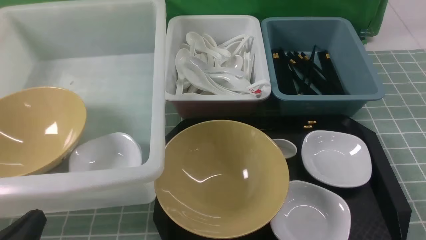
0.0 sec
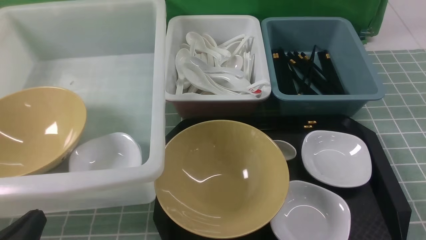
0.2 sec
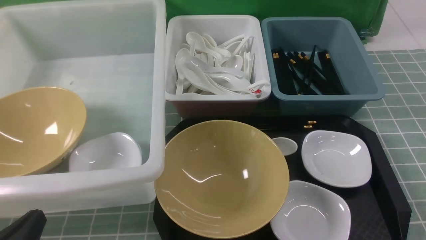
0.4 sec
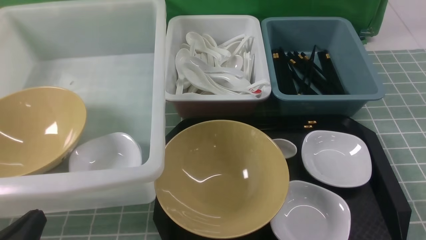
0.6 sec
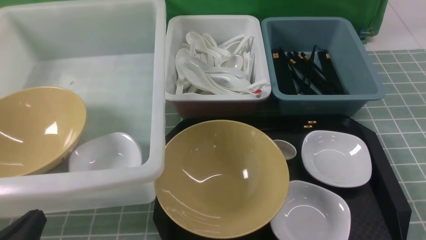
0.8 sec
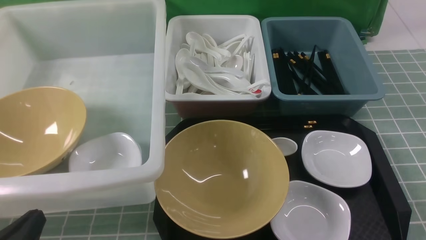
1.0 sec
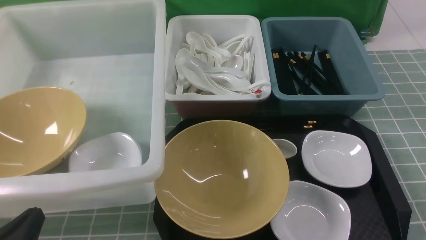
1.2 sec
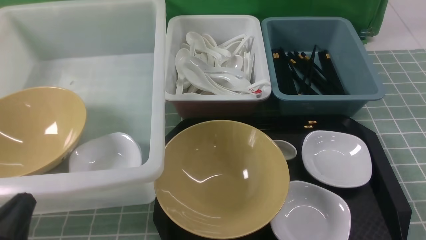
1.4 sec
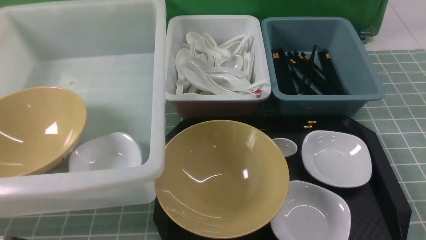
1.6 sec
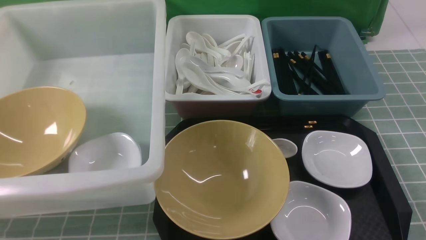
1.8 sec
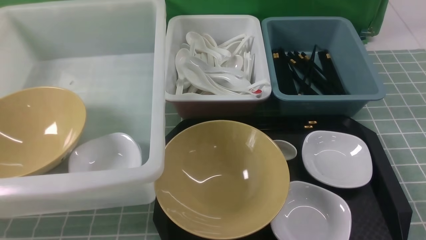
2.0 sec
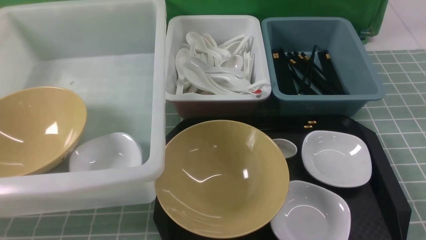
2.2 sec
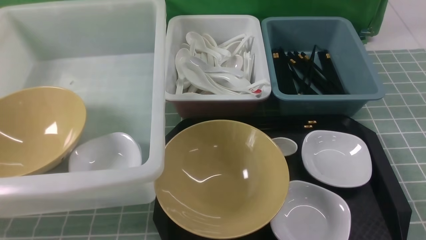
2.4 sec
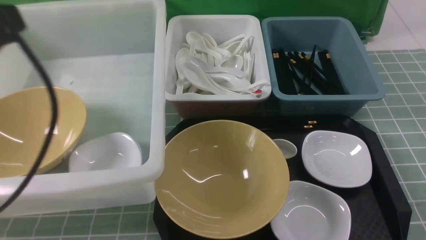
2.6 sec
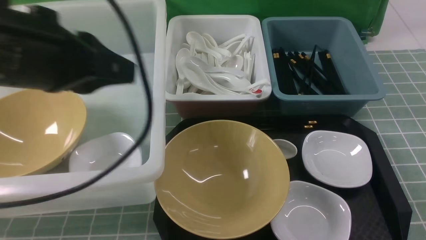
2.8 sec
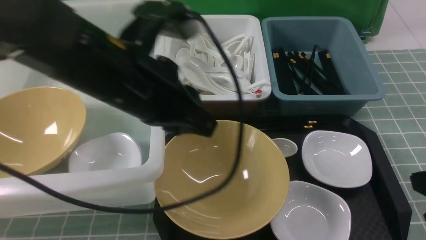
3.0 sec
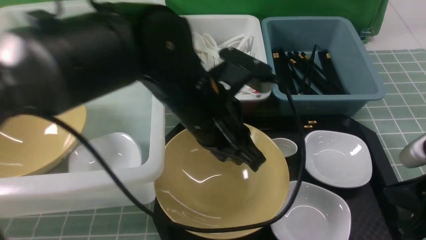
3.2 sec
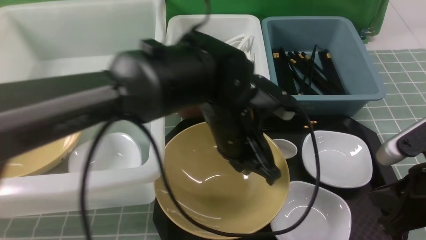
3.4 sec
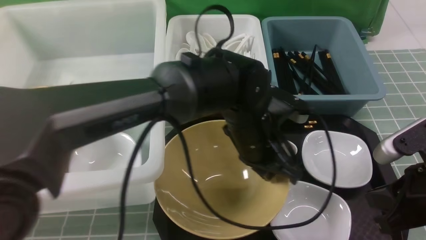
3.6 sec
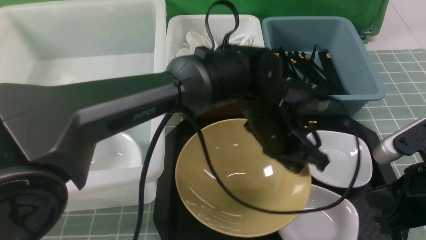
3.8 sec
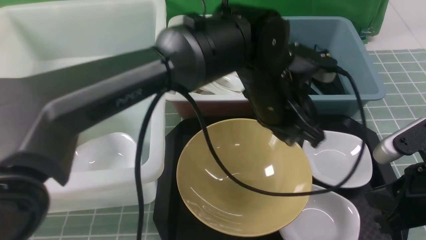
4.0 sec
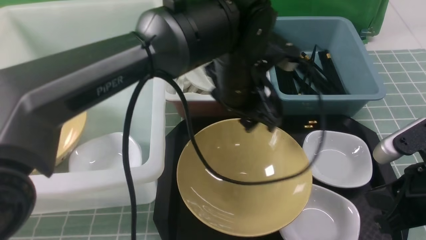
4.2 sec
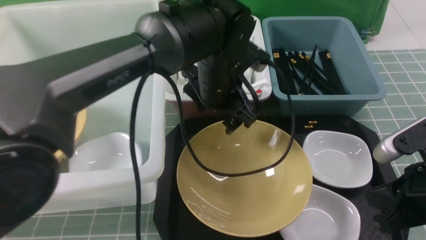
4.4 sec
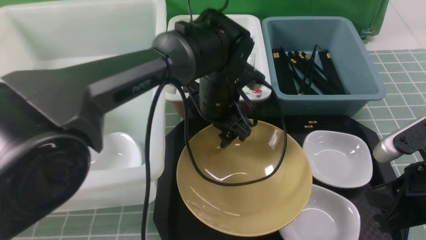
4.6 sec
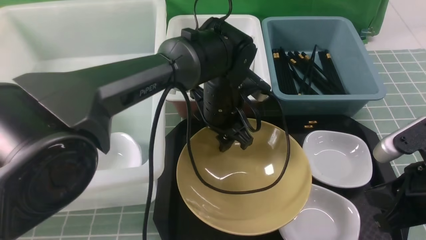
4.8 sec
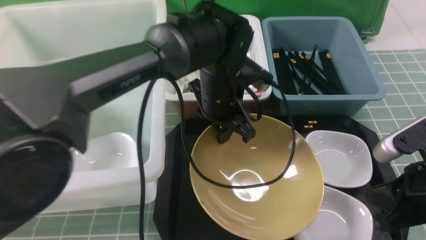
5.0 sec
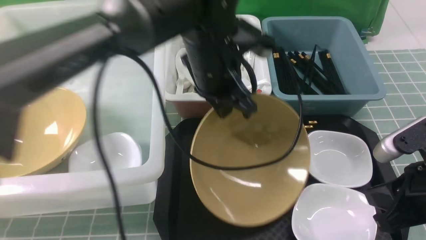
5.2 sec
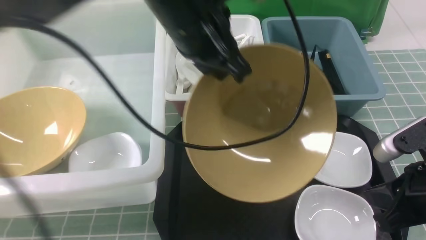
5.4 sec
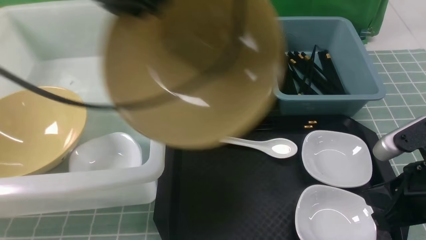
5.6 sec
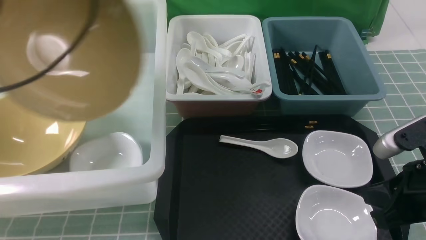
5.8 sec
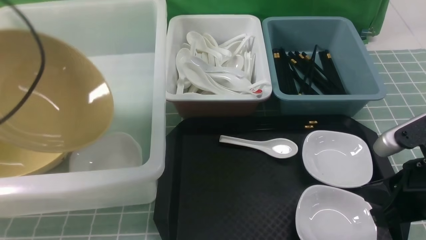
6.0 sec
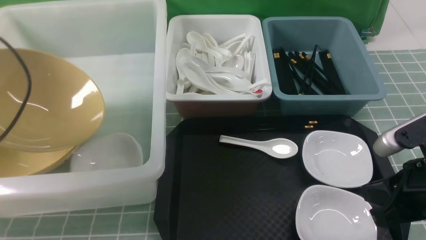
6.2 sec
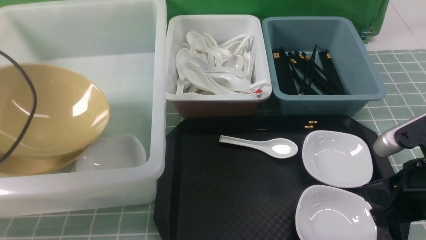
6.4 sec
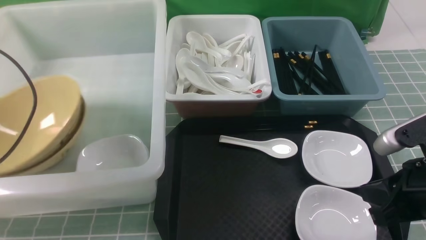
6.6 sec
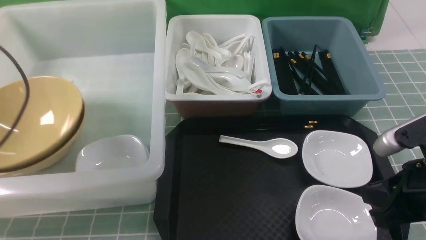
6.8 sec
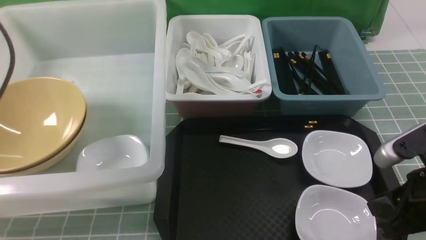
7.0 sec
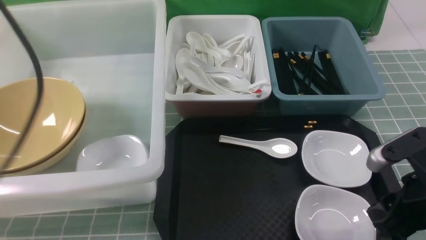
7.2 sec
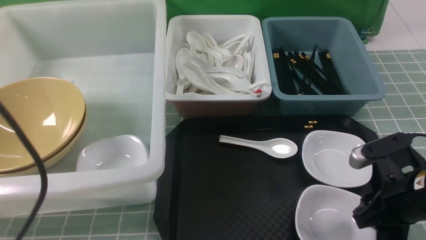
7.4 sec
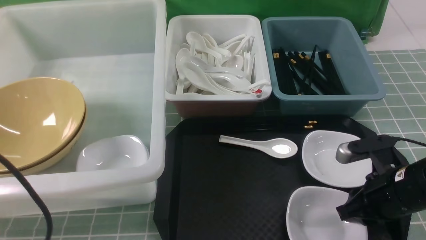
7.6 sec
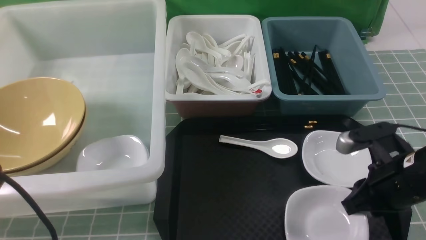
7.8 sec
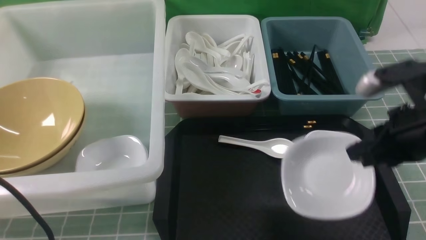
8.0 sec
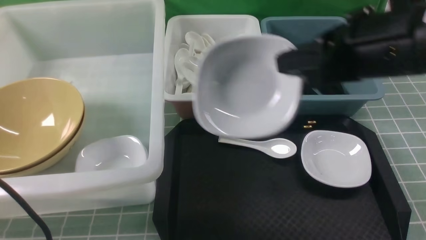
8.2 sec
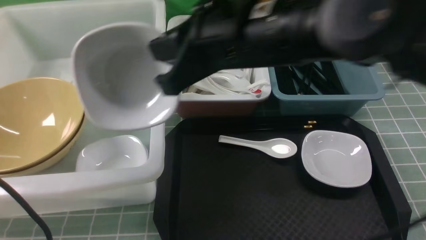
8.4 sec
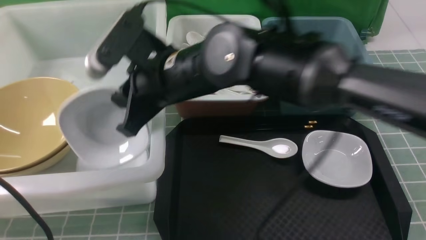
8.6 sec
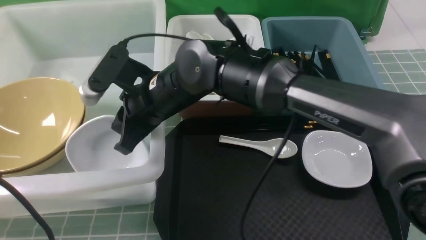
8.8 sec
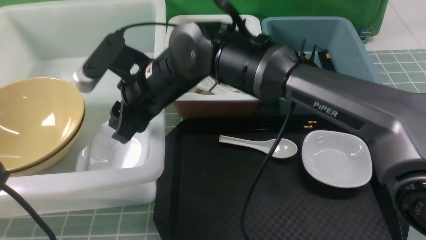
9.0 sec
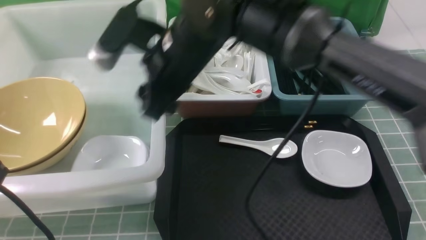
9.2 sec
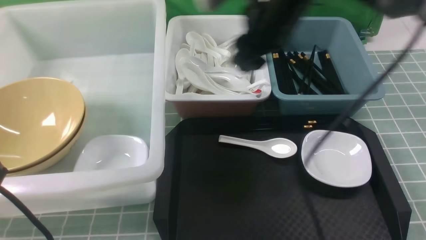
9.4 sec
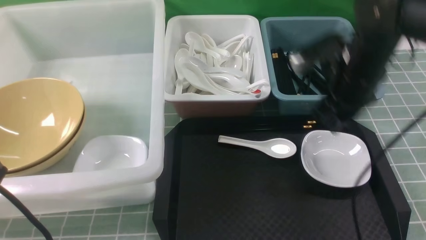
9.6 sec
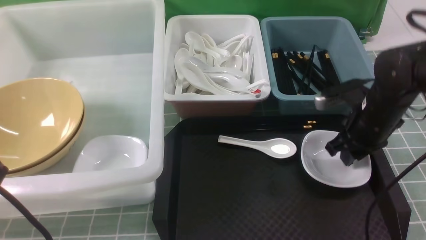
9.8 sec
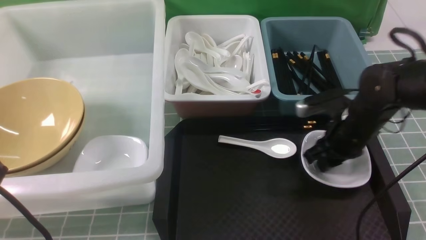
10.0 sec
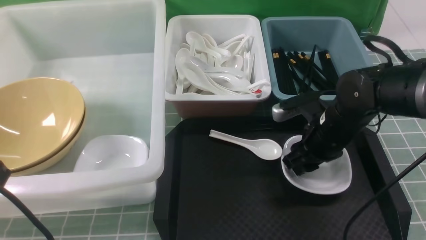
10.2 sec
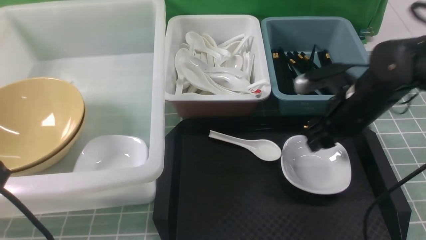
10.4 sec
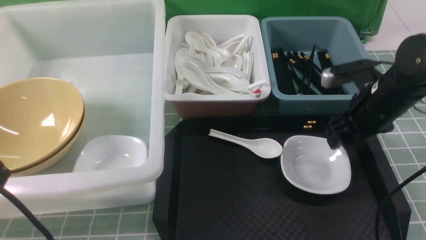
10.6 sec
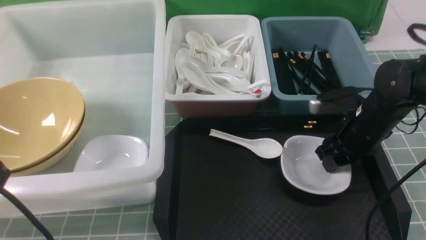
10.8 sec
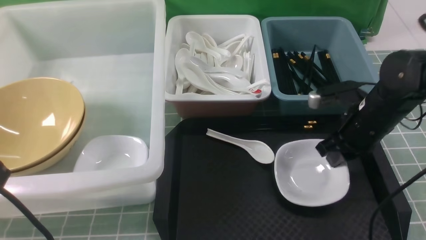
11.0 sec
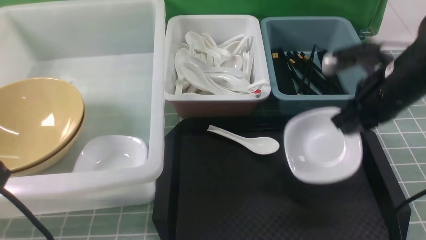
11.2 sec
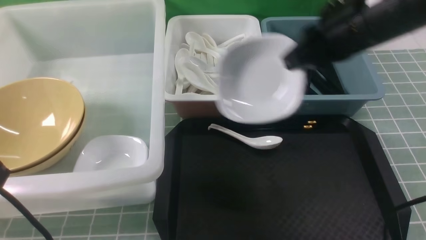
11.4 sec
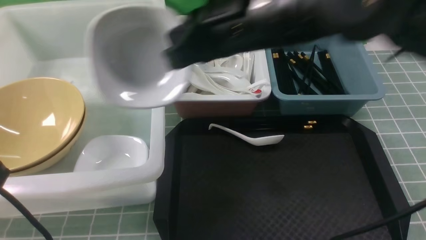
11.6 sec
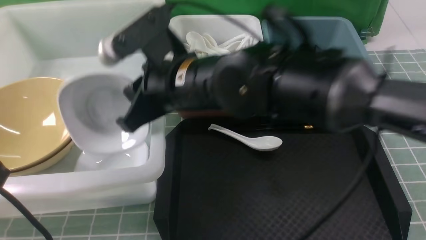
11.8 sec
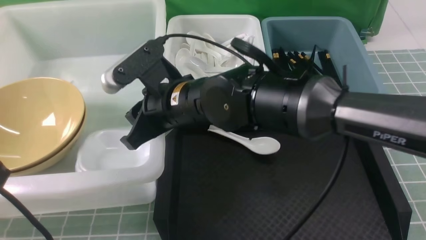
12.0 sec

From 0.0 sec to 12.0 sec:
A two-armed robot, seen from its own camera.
Task of the whole recording: on blue table put chopsticks spoon bowls plates into blue grey white boxes.
Step, from 0.0 sec to 5.2 sec: use the left arm to grab the yellow noodle bowl on the left.
Step, from 5.4 sec to 6.8 sec: use the left arm to put the noodle bowl into the large storage box on the left.
Step, from 7.0 sec to 8.0 sec: use the right arm to grab the plate.
Step, from 8.2 sec to 9.0 sec: use the right arm to put the plate into the large storage box on the left.
Step, from 9.2 sec to 11.2 sec: use the right arm to grab the plate.
From 0.0 sec to 1.6 sec: The left gripper moves upward, approximately 5 cm.
From 1.6 sec to 3.0 sec: The right gripper is displaced forward and upward by roughly 10 cm, and closes its fingers; the left gripper moves forward, to the right and upward, about 30 cm.
From 3.0 sec to 4.4 sec: The right gripper moves roughly 5 cm. The left gripper is displaced forward, to the right and downward by some 15 cm, and opens its fingers.
From 4.4 sec to 6.0 sec: The left gripper is displaced to the left by about 35 cm, and closes its fingers.
From 6.0 sec to 7.6 sec: The right gripper travels downward by approximately 5 cm, and opens its fingers, while the left gripper moves backward, approximately 15 cm, and opens and closes again.
From 7.6 sec to 9.0 sec: The right gripper shifts some 30 cm to the left, and closes, then reopens.
From 9.0 sec to 10.4 sec: The right gripper travels to the right by some 25 cm.
From 10.4 sec to 12.0 sec: The right gripper moves to the left, some 25 cm, and closes its fingers.

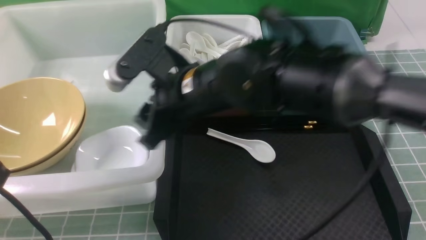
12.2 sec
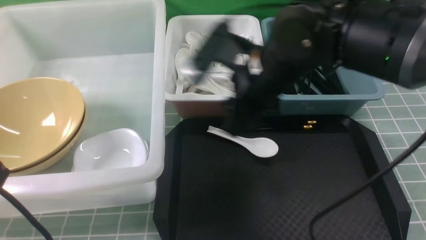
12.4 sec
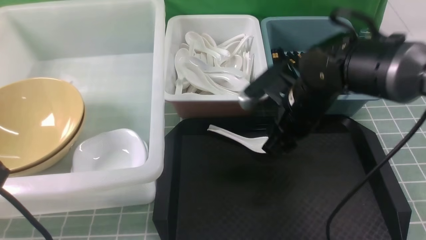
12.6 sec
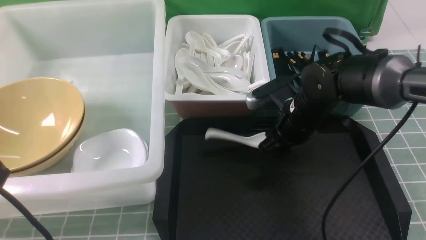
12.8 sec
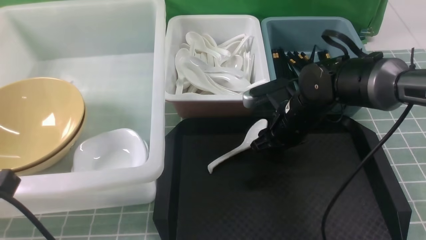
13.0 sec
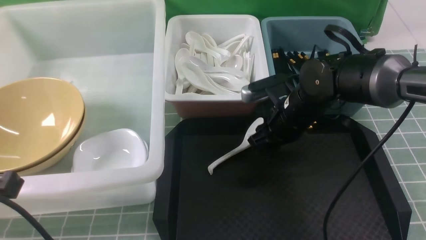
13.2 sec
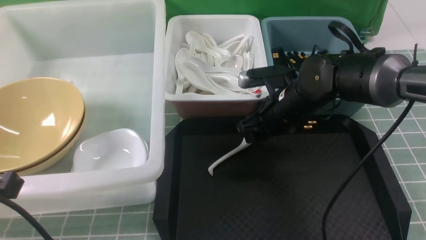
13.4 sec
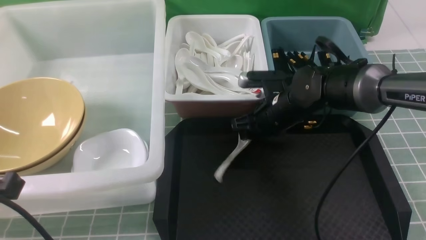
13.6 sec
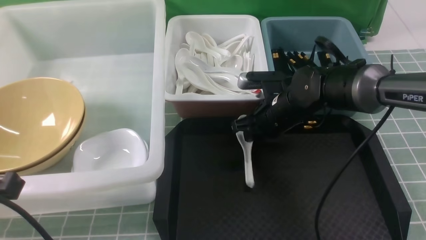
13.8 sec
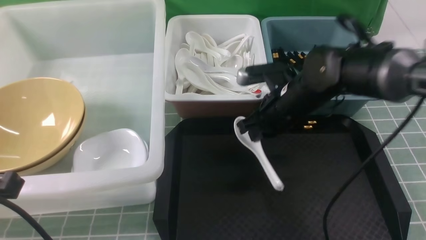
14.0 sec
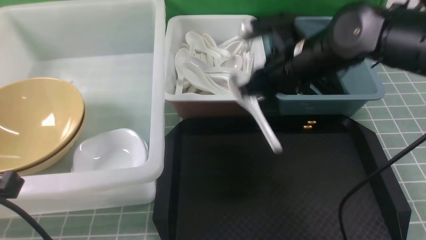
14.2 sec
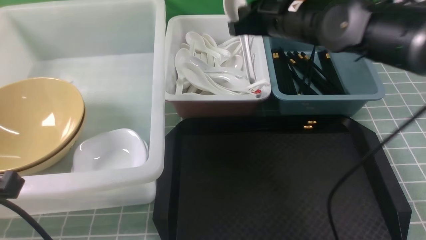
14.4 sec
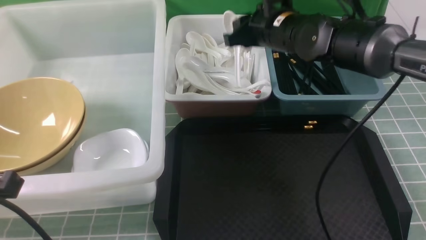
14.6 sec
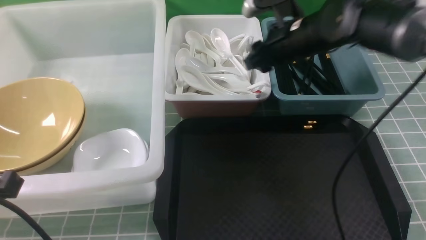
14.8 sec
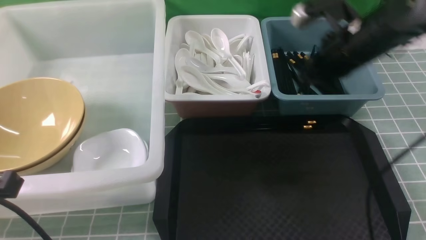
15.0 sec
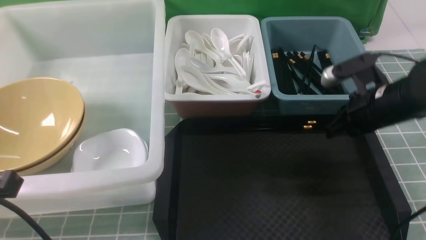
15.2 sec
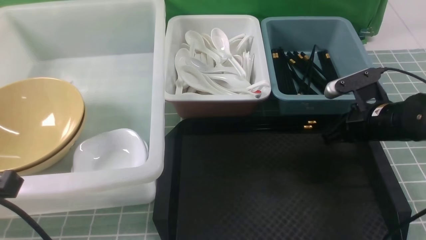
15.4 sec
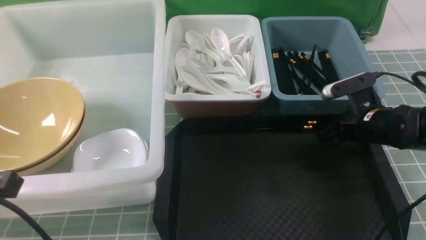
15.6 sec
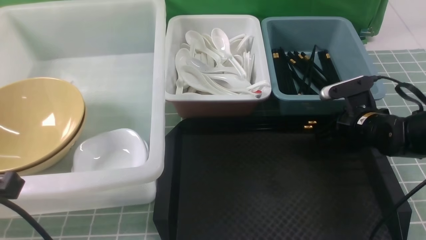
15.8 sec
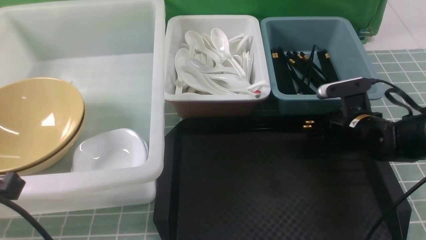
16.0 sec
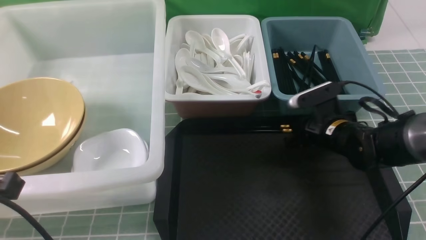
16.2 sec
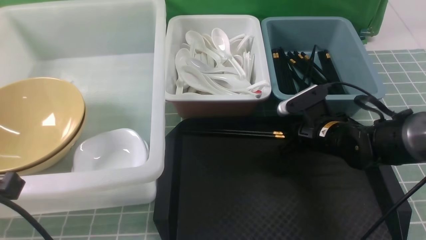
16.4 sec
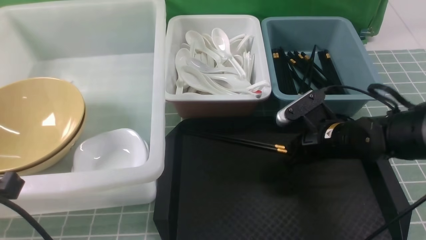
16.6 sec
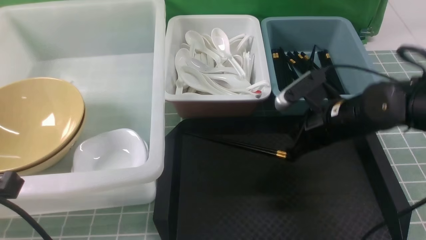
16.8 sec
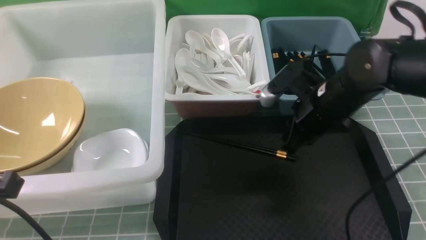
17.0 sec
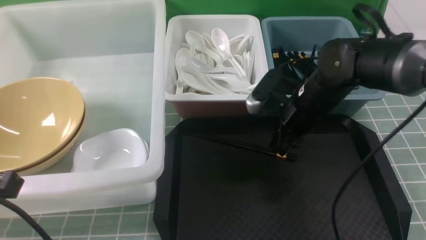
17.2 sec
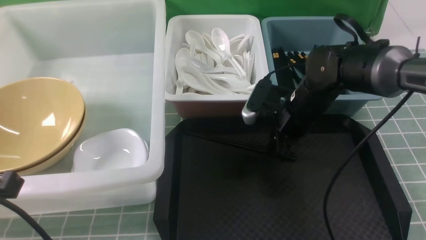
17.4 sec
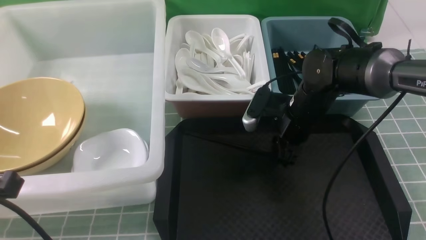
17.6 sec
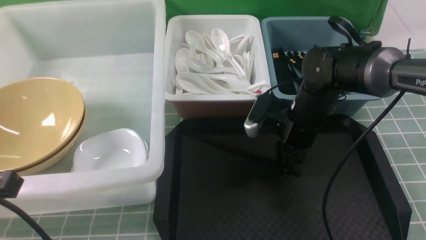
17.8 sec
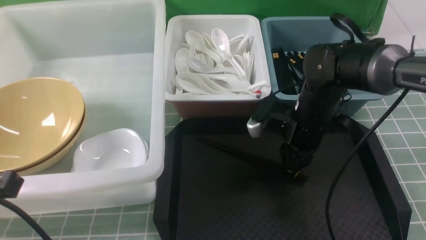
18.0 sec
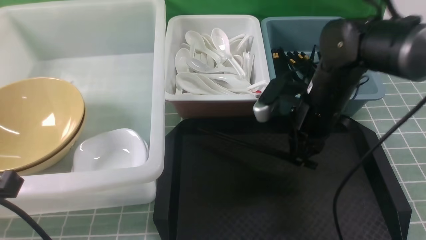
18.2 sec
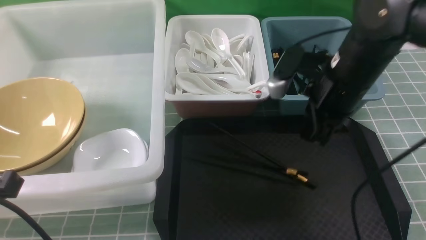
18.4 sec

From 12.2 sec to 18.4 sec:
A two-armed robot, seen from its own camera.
Task of the whole recording: on blue table put chopsticks spoon bowls plates into blue grey white boxes.
Step, from 12.4 sec to 14.0 sec: use the right arm to grab the soup spoon in the middle.
Step, from 14.2 sec to 14.8 sec: use the right arm to put the soup spoon into the small storage box in the middle.
From 12.2 sec to 13.8 sec: The right gripper travels downward, to the right and forward by roughly 15 cm, and closes.
From 13.8 sec to 15.4 sec: The right gripper shifts some 15 cm to the right, and closes.
From 15.4 sec to 16.8 sec: The right gripper travels to the left by approximately 10 cm.
From 16.8 sec to 18.4 sec: The right gripper shifts some 10 cm upward, and opens, then closes once more.
